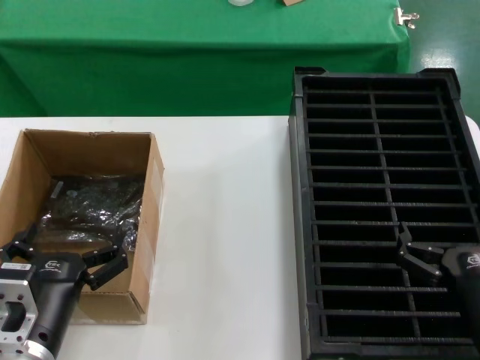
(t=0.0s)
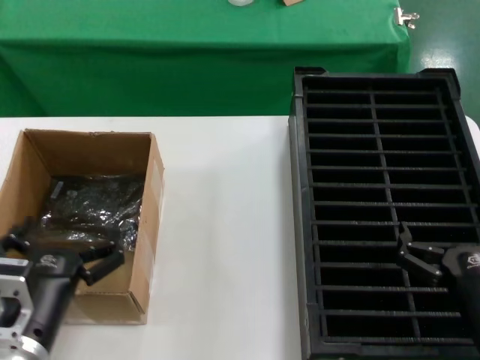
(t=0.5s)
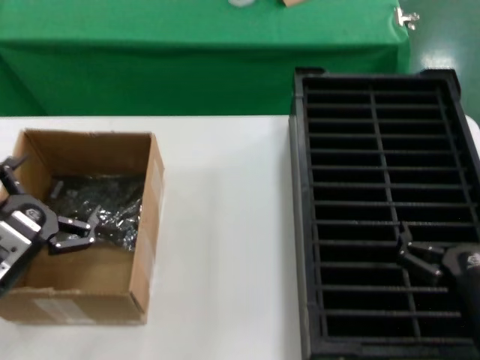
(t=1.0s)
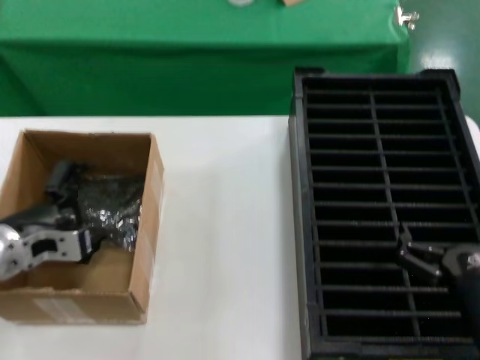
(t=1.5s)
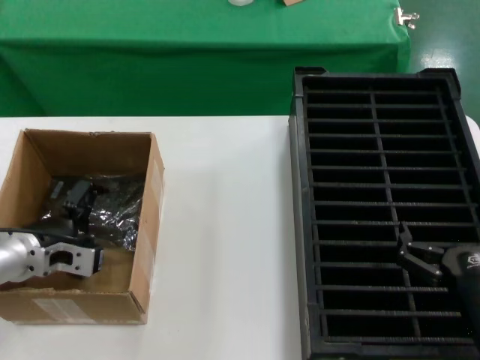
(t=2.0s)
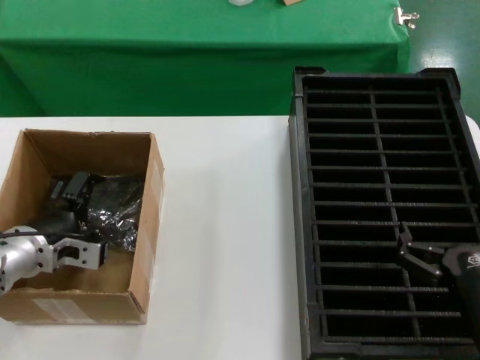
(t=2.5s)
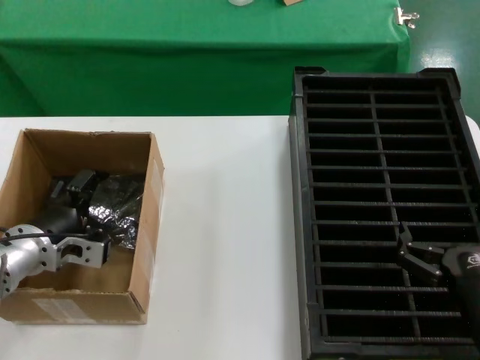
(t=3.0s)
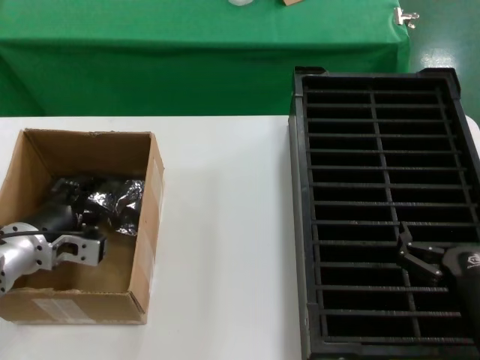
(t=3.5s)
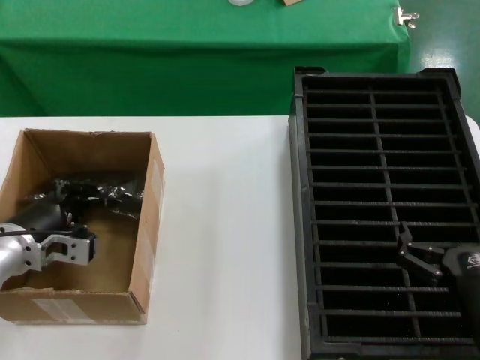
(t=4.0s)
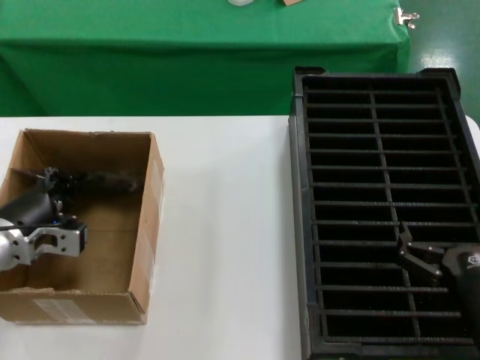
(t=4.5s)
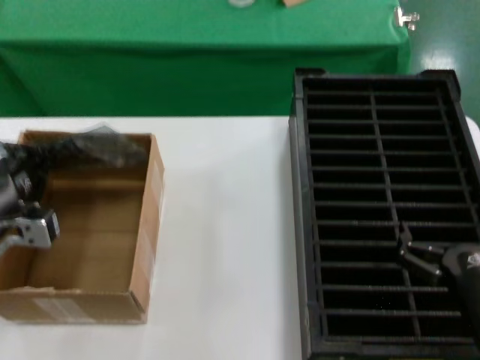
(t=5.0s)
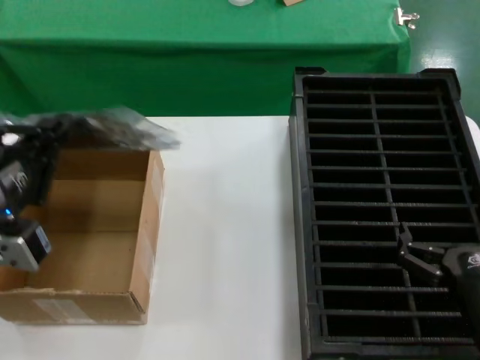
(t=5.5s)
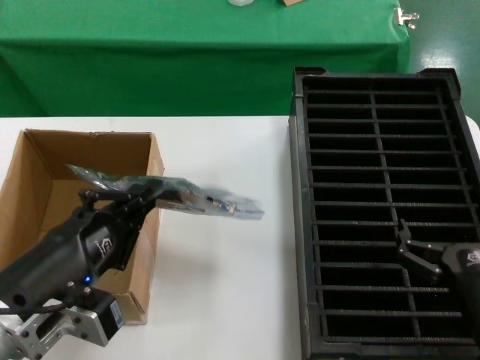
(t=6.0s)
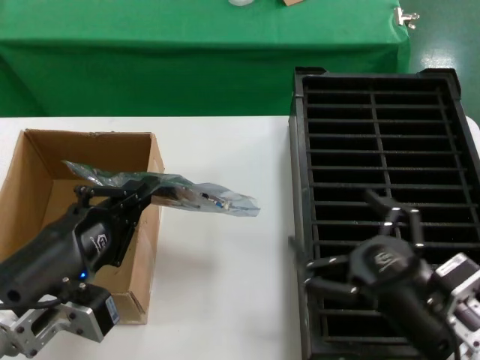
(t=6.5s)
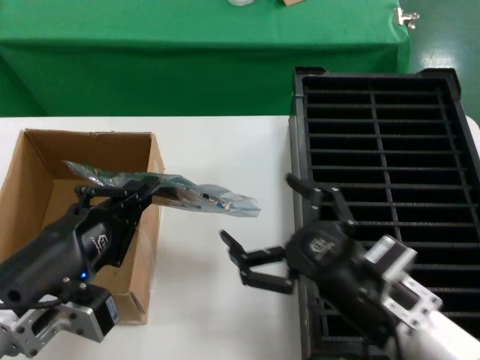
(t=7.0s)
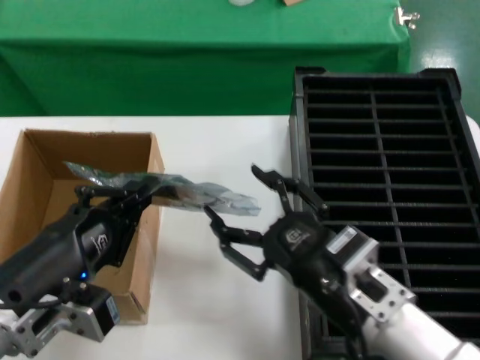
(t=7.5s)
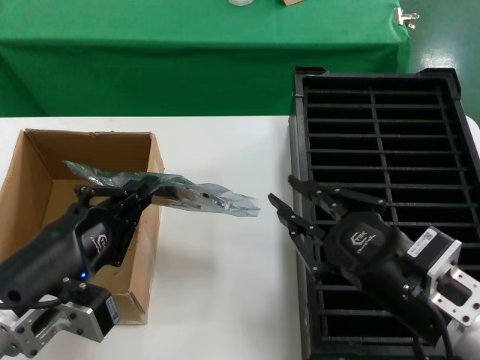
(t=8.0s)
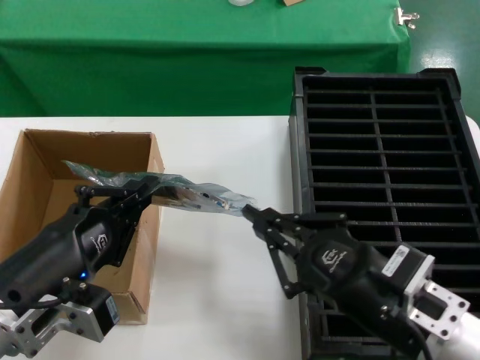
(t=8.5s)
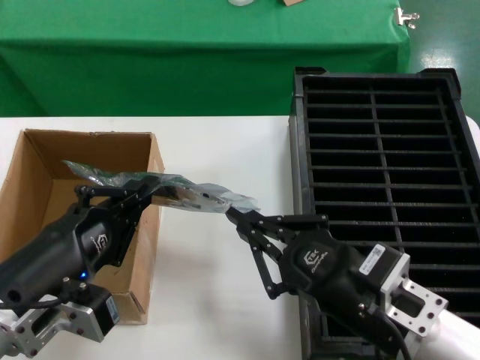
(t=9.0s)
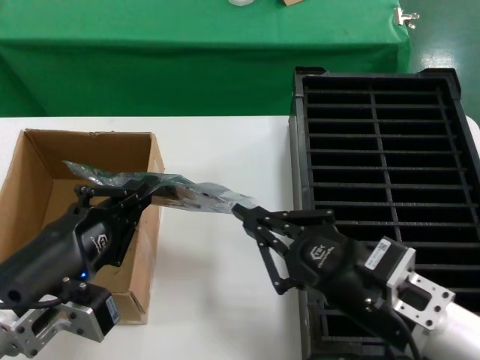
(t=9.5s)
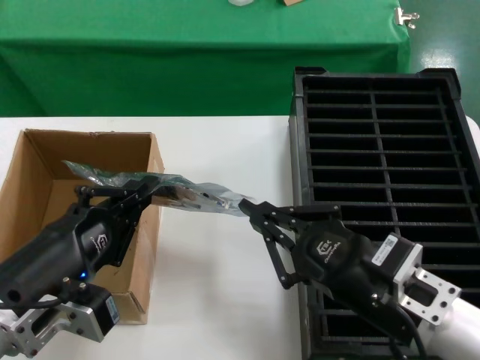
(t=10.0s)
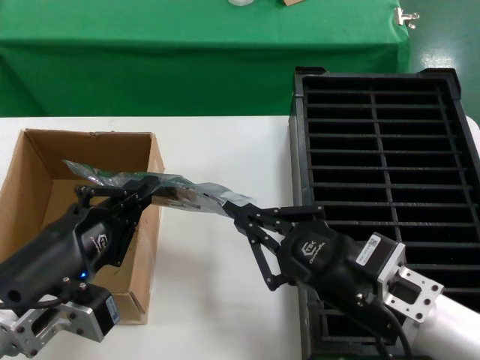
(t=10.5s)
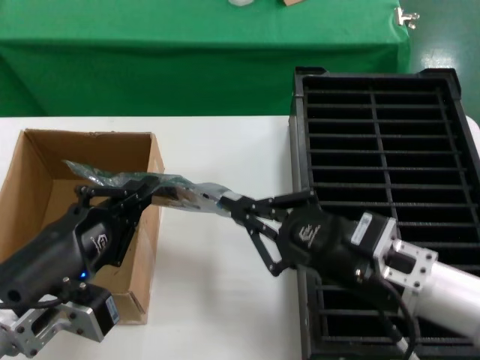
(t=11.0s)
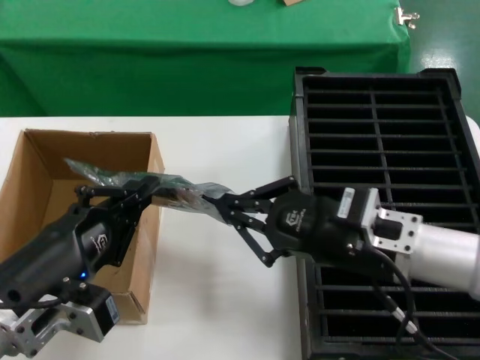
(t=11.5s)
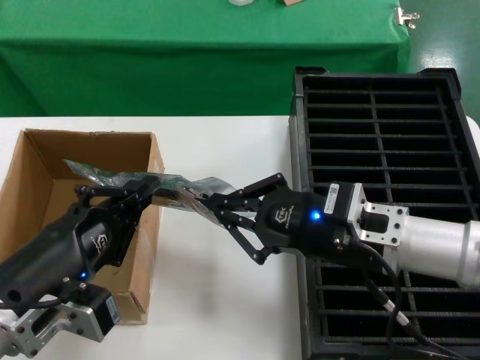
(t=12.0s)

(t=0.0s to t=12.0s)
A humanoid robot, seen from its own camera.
Task of the whole recording: take out graphics card from box remove packaging put into black container.
Step, t=0.0s - t=4.0s: Grasp the bag.
Step, t=4.5s - t=6.0s: Lift the bag.
t=0.0s - t=2.0s: The left hand moves forward and to the left, some 20 cm.
t=2.0s - t=4.0s: The hands stay close to where they were, moving slightly.
t=4.0s - t=6.0s: The left hand moves backward and to the right, approximately 20 cm.
t=6.0s - t=8.0s: The right hand is displaced upward and to the left by about 10 cm.
t=8.0s - t=10.0s: The hands stay close to where they were, moving slightly.
t=10.0s - t=12.0s: The right hand heads forward, covering about 10 cm.

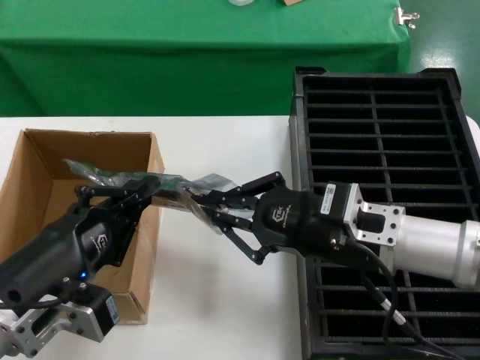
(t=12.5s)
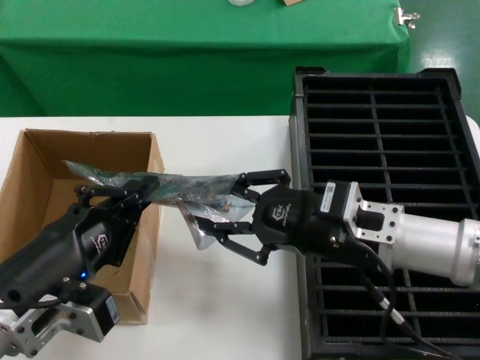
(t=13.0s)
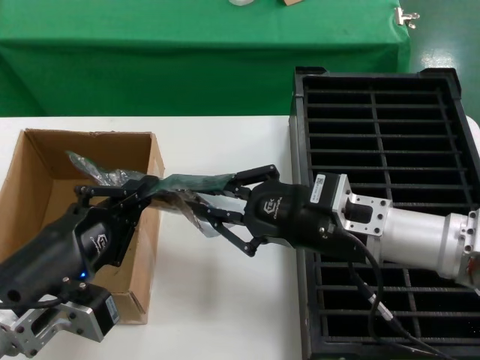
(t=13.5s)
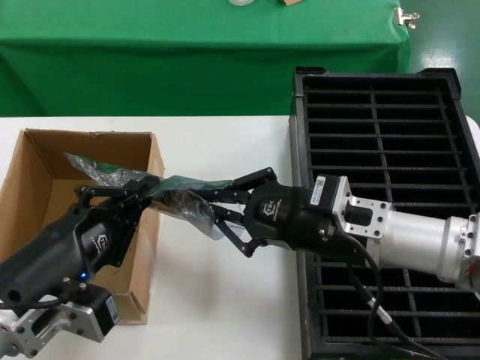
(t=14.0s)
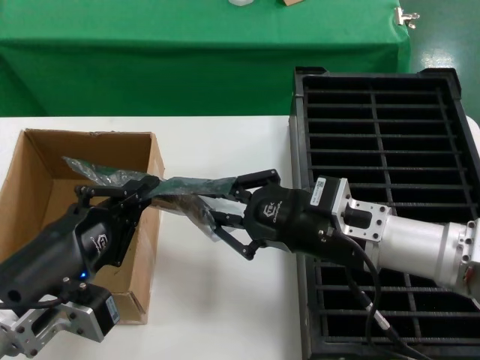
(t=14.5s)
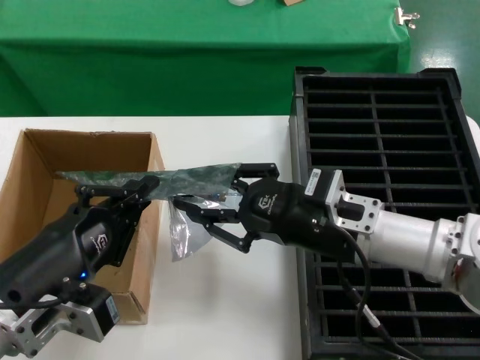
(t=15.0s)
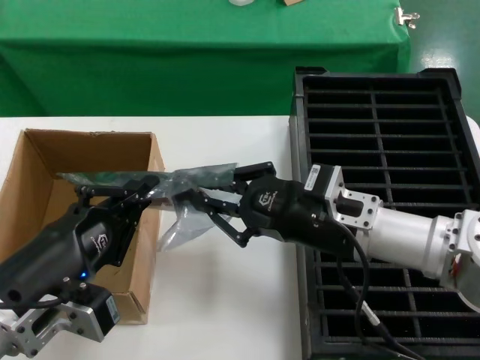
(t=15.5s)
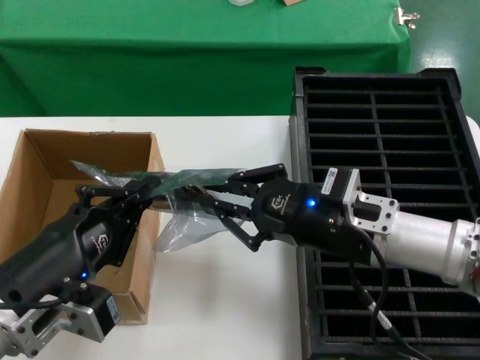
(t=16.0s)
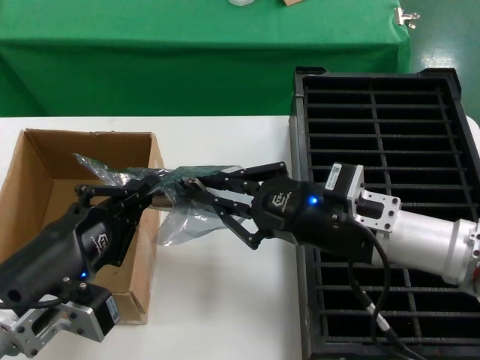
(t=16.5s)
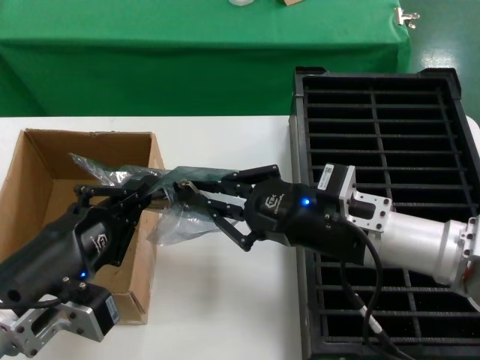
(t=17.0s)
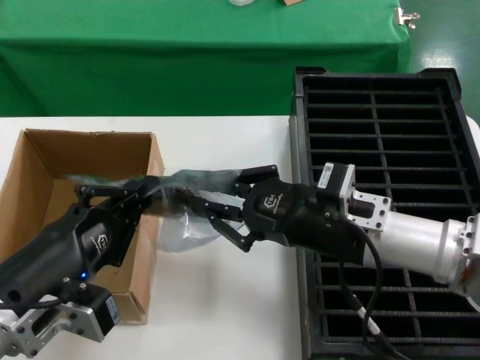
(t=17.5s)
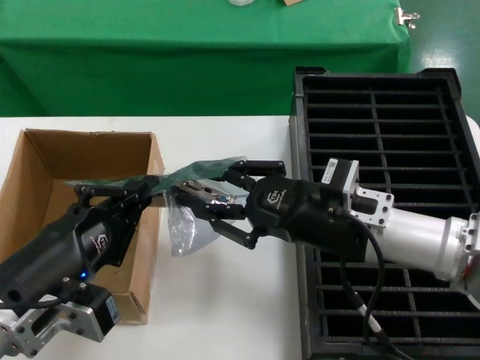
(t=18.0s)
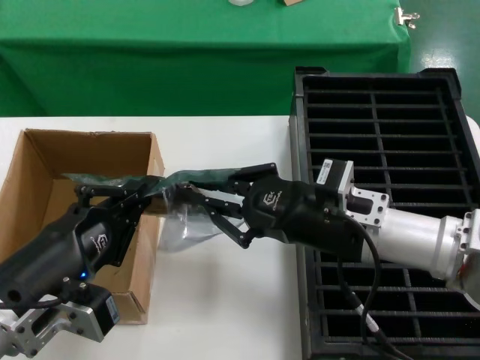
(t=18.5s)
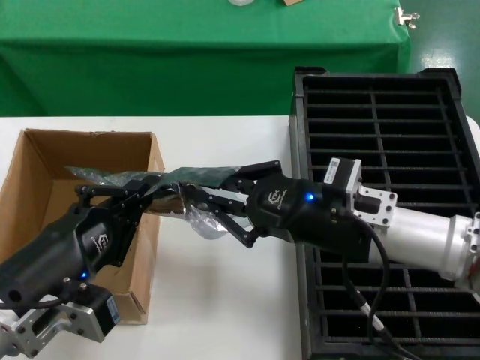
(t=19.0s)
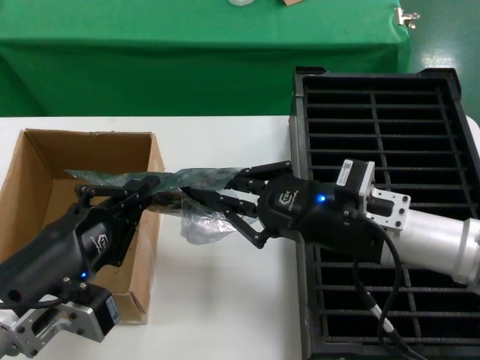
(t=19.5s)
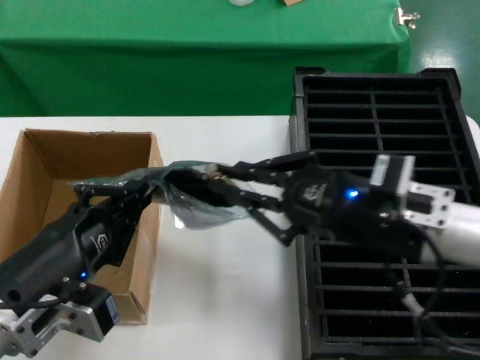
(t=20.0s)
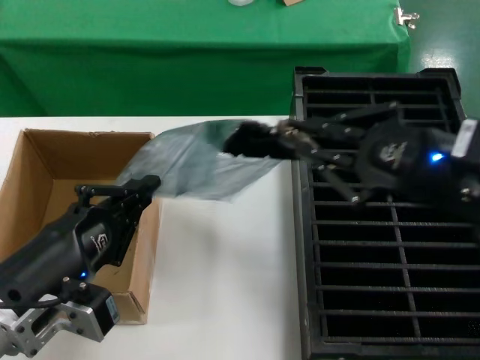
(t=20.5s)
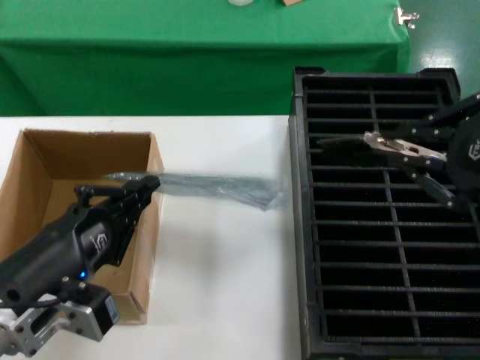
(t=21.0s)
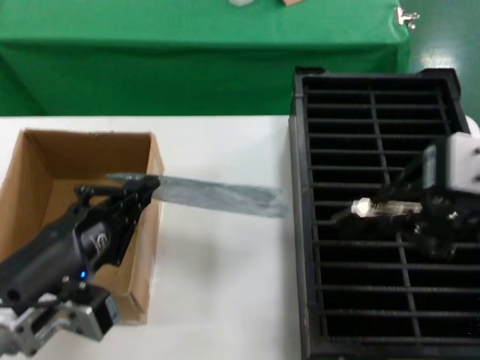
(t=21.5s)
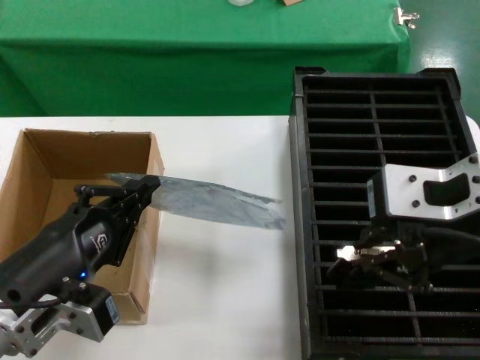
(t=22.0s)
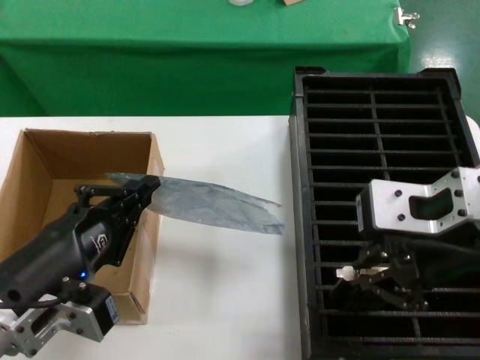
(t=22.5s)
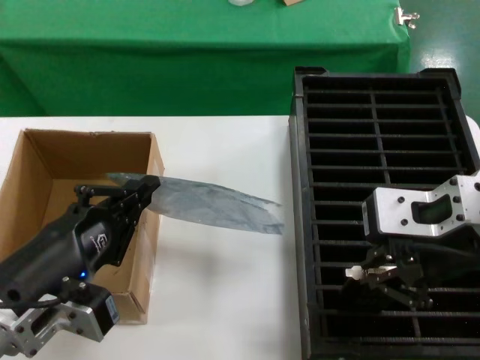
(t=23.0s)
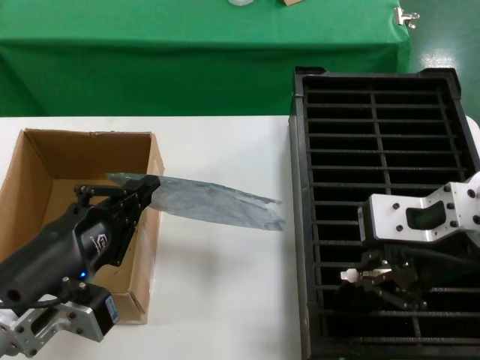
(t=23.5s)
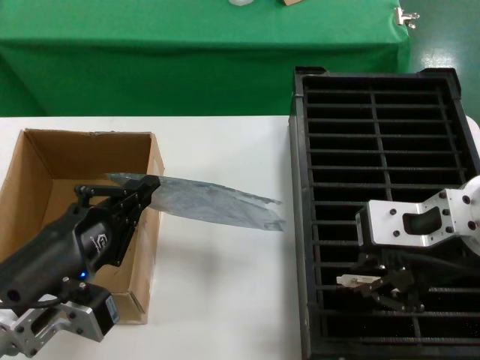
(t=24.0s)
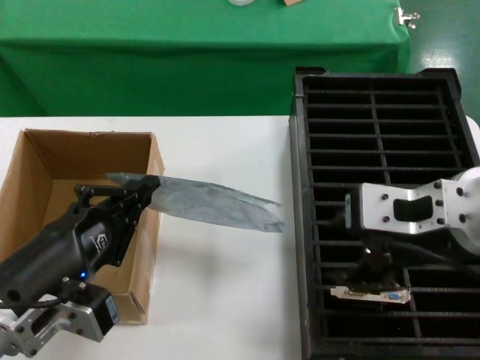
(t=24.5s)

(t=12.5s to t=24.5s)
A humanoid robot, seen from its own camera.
Task of the whole recording: take out graphics card from box remove packaging put into black container.
Step, t=12.5s - t=20.5s: Take out the hard disk of the bag.
Step, t=21.0s - t=24.0s: Place the hard disk in the hard disk enclosure.
t=12.5s - t=16.5s: The hands stay close to where they were, moving slightly.
t=16.5s - t=18.5s: Both hands stay put.
t=18.5s - t=20.5s: The right hand goes some 15 cm upward, to the right and backward.
t=20.5s - t=22.5s: The right hand travels to the left and upward by about 10 cm.
t=22.5s - t=24.5s: The right hand moves roughly 5 cm.

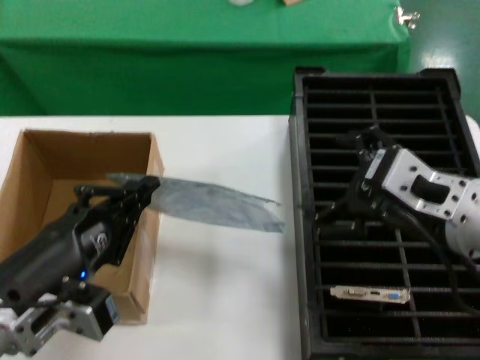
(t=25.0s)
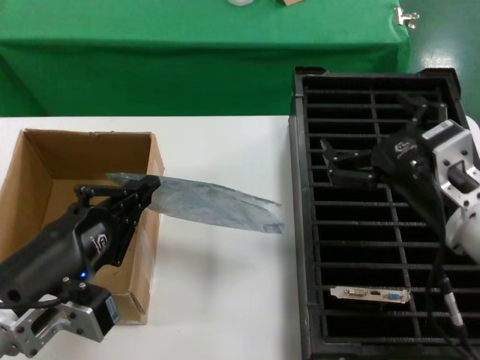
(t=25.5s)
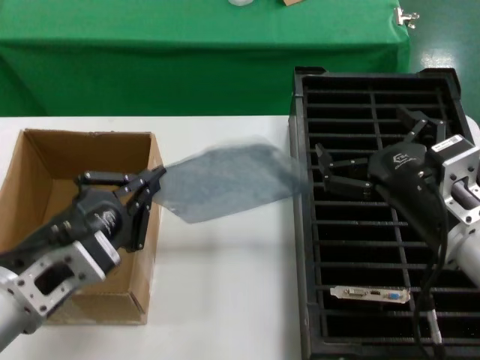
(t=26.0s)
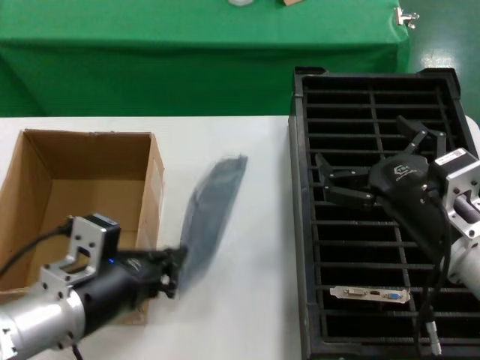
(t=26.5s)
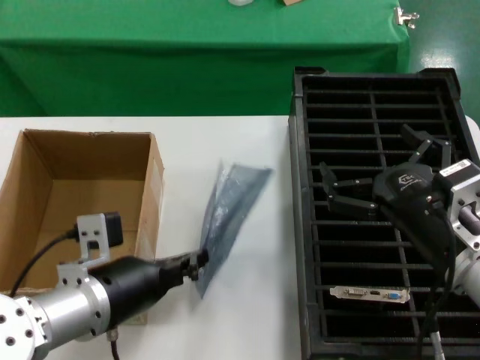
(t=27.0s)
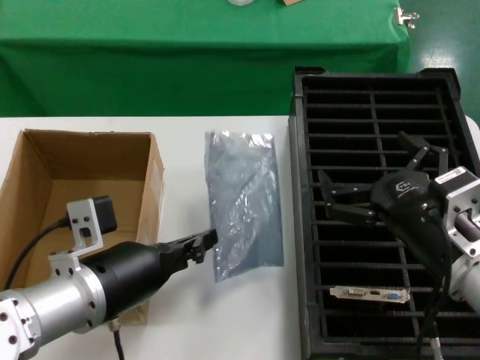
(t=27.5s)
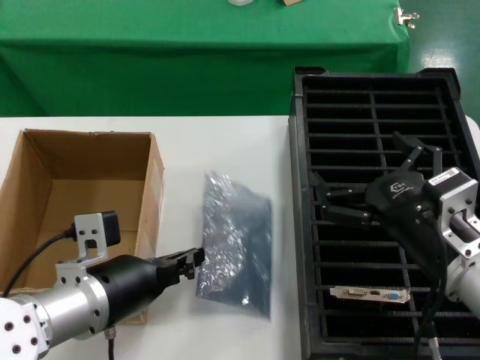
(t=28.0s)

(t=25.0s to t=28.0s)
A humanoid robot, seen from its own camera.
Task of the whole recording: take out graphics card from box remove packaging put into black container.
t=25.0s - t=26.5s: The right hand shifts roughly 10 cm downward. The left hand heads forward, covering approximately 5 cm.
